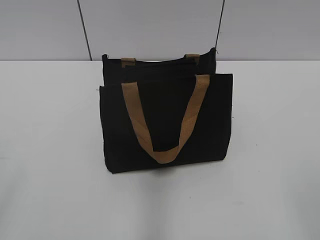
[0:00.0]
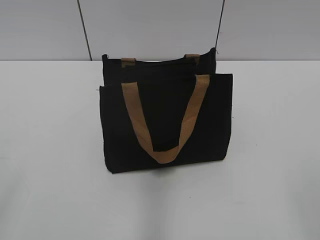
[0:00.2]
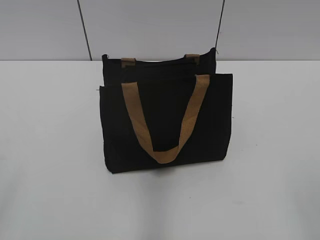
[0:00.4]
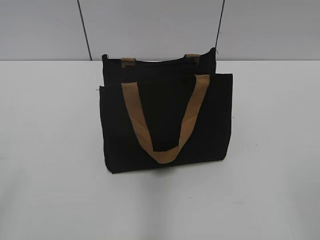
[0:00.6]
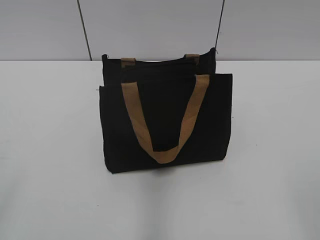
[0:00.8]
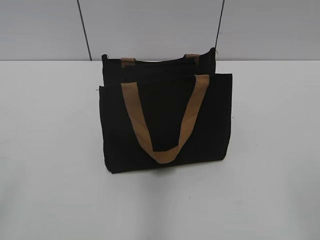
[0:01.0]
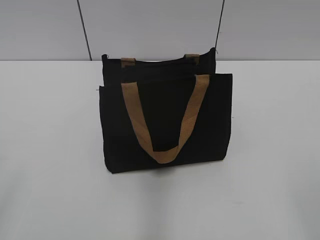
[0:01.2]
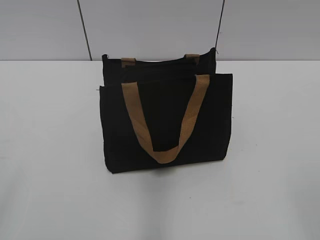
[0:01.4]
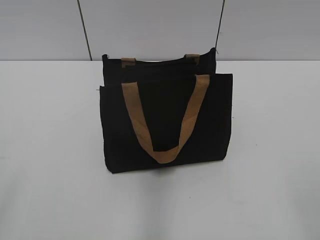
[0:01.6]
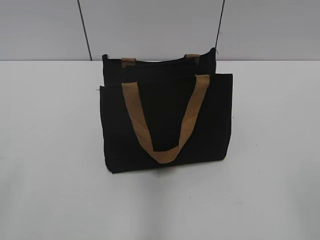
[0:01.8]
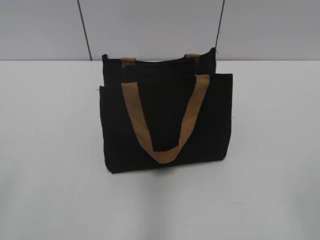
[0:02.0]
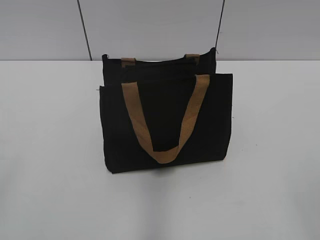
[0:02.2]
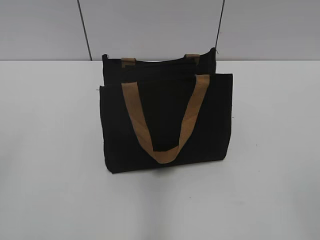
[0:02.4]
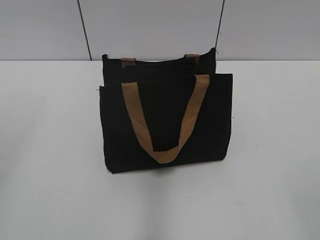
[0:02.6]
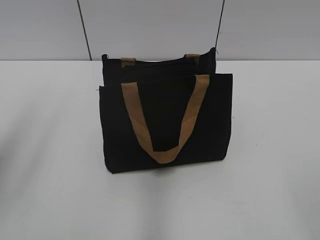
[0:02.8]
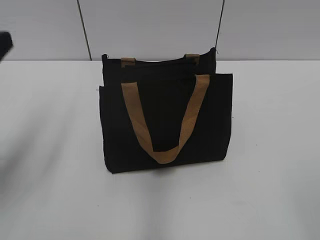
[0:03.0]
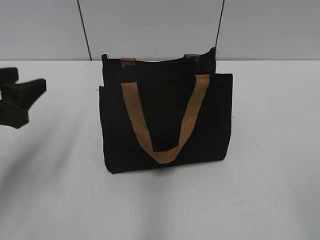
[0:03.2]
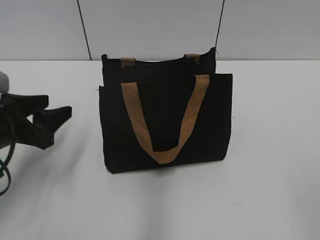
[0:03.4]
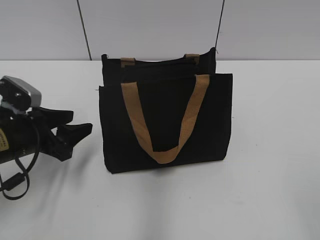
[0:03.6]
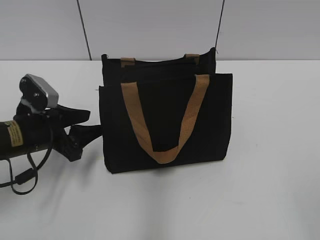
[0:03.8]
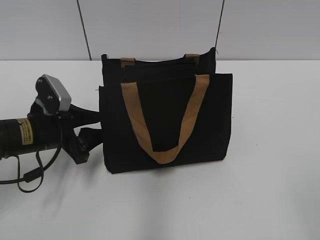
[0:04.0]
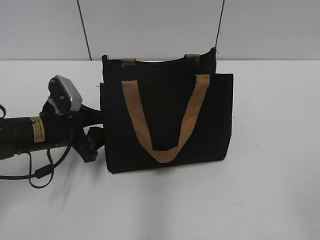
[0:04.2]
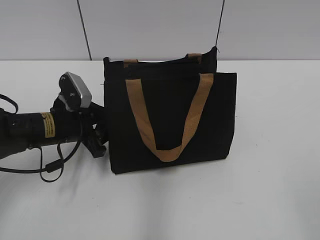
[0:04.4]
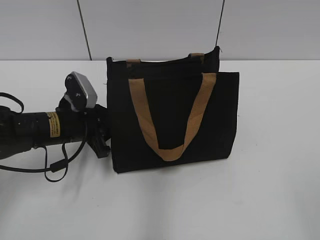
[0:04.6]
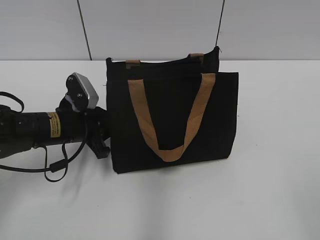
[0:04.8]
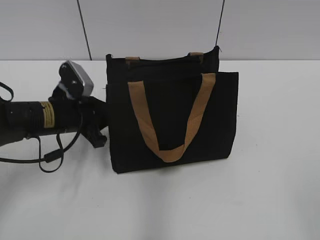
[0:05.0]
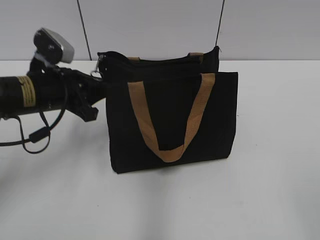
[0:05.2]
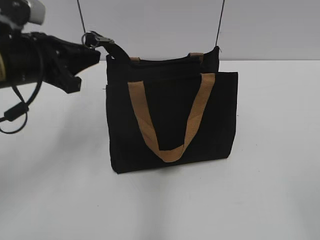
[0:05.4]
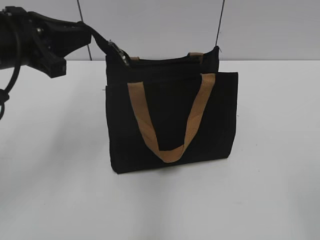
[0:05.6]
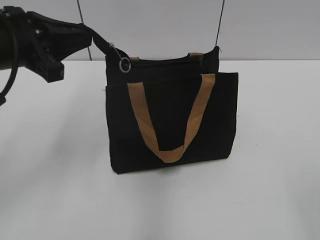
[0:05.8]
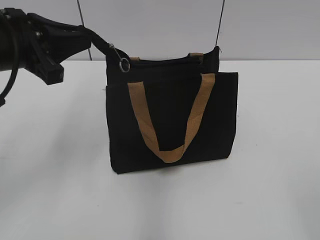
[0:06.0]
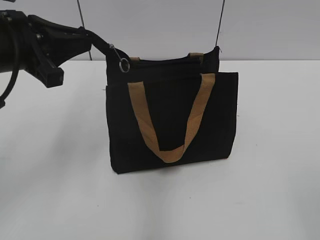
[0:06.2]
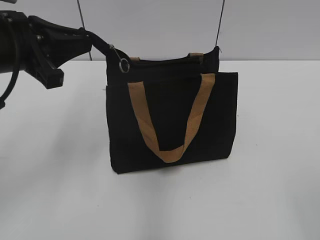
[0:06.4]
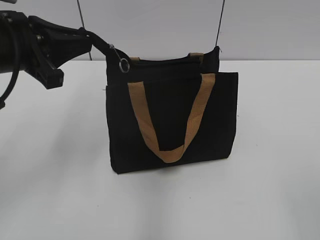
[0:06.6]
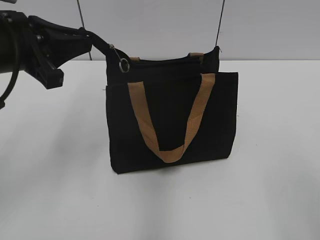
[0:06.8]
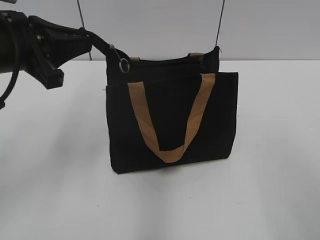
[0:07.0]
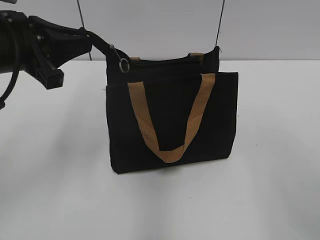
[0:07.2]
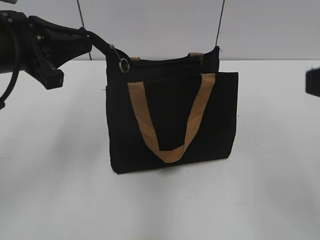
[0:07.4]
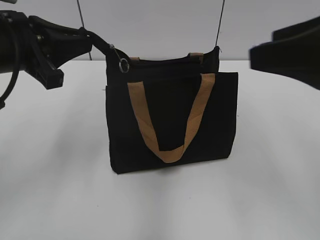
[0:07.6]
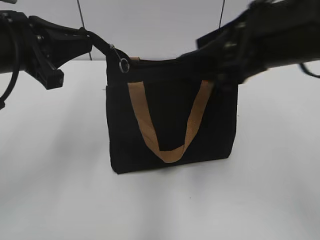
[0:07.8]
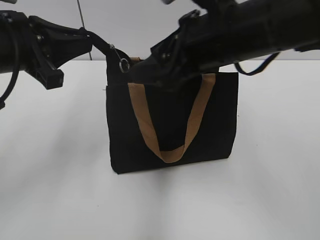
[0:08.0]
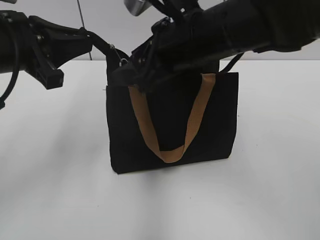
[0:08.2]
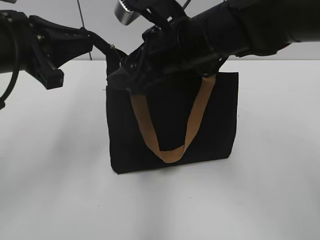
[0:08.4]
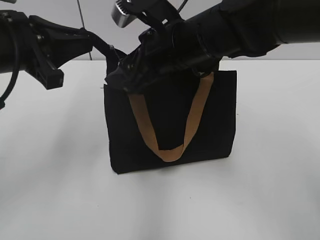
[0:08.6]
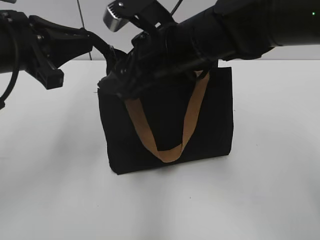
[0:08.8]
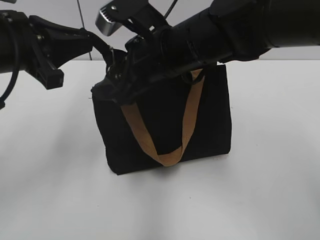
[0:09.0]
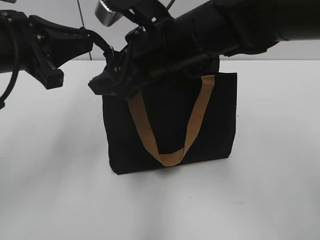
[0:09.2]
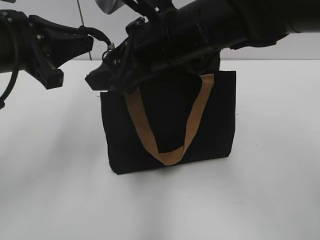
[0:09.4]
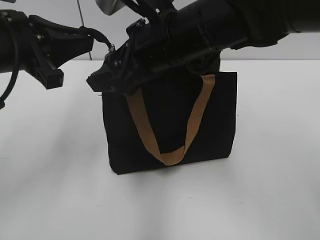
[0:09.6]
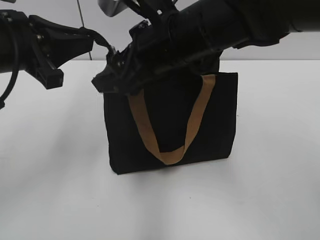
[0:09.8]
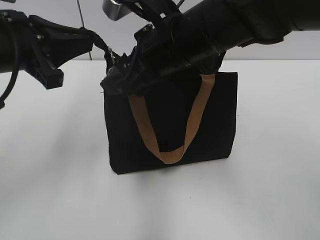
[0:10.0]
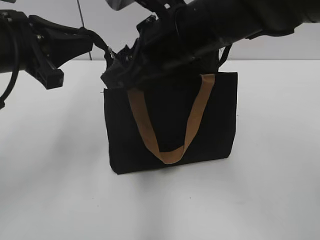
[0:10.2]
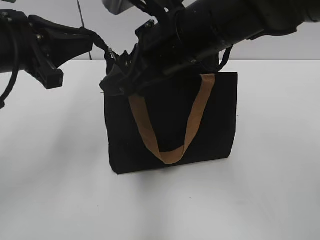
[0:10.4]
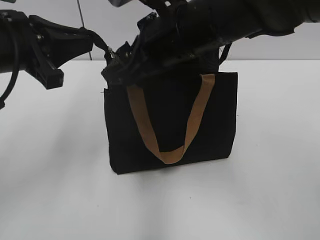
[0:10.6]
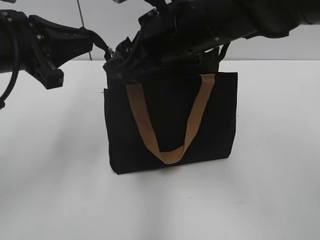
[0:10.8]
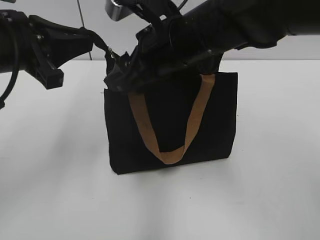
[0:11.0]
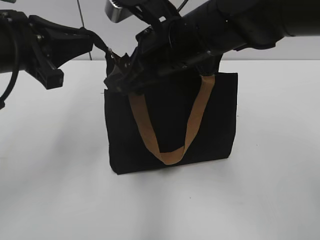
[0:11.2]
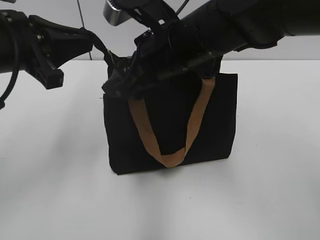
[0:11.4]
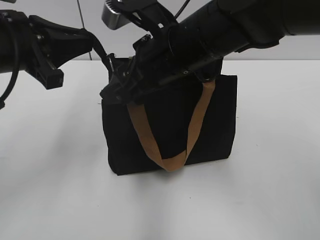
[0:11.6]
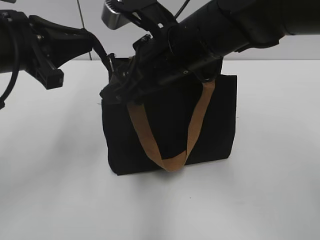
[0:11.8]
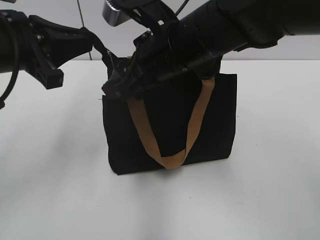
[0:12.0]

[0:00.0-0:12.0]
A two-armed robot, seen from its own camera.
0:01.6 to 0:03.0: The left gripper is displaced forward by roughly 20 cm.
0:03.0 to 0:04.4: The left gripper shifts about 25 cm downward, forward and to the right.
0:04.4 to 0:06.0: The left gripper travels upward by roughly 20 cm, and closes its fingers.
0:06.0 to 0:07.6: The right gripper goes about 20 cm forward.
0:07.6 to 0:09.0: The right gripper is displaced to the left, forward and downward by some 25 cm.
0:09.0 to 0:12.0: The grippers make only small movements.

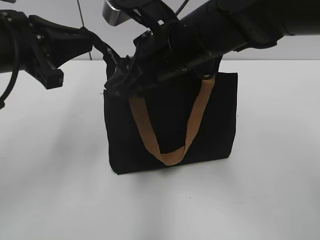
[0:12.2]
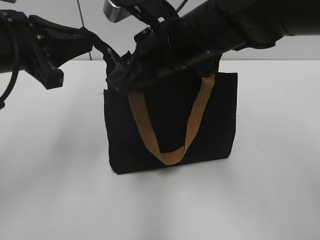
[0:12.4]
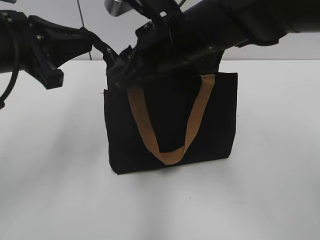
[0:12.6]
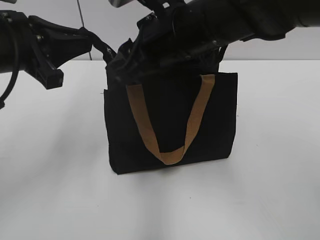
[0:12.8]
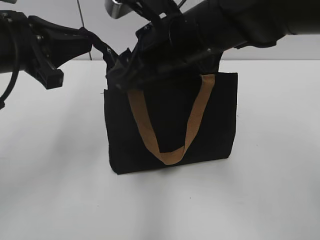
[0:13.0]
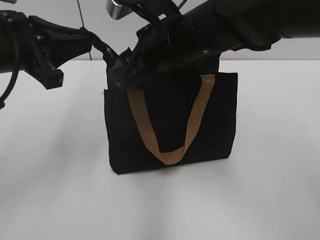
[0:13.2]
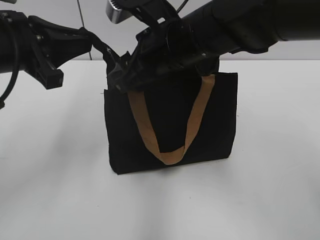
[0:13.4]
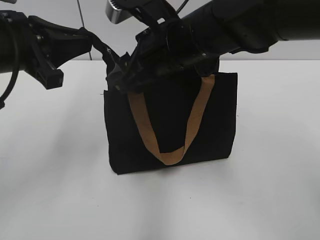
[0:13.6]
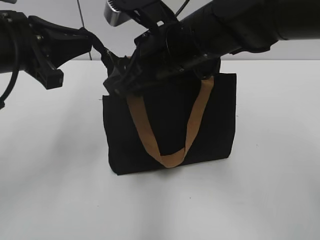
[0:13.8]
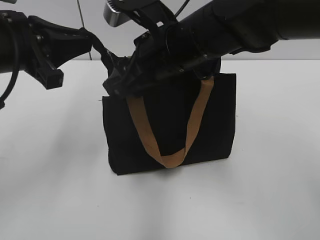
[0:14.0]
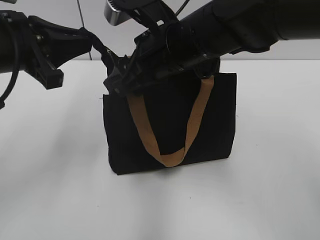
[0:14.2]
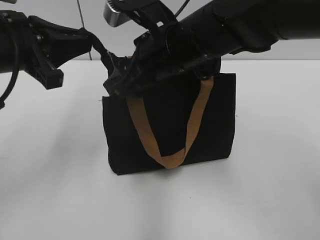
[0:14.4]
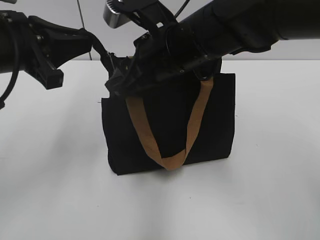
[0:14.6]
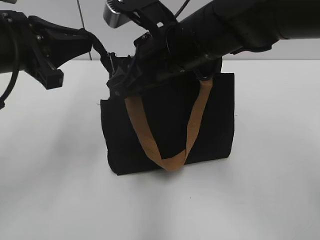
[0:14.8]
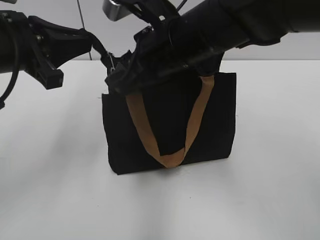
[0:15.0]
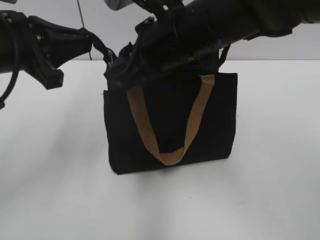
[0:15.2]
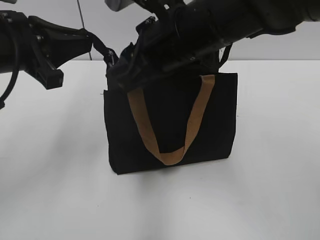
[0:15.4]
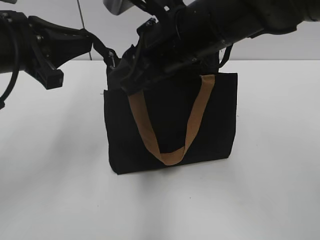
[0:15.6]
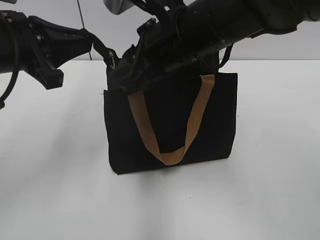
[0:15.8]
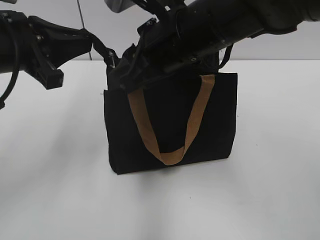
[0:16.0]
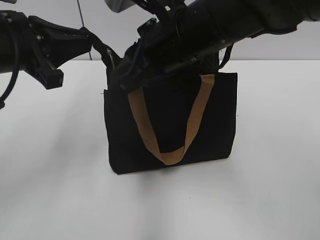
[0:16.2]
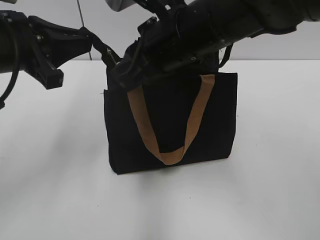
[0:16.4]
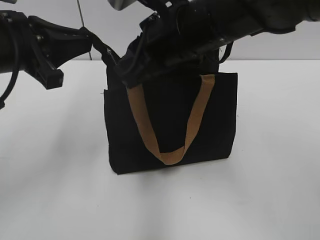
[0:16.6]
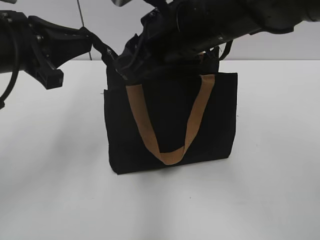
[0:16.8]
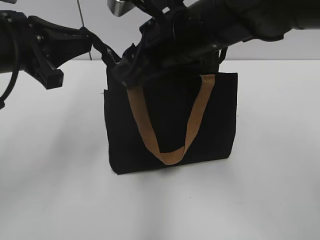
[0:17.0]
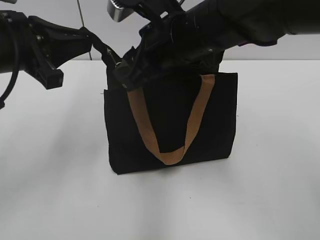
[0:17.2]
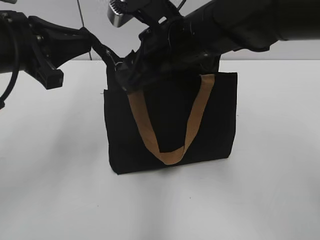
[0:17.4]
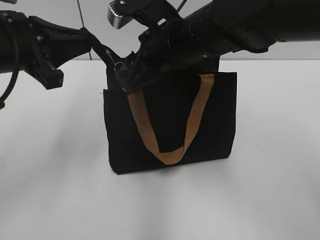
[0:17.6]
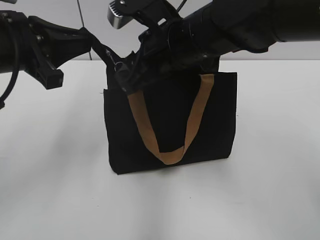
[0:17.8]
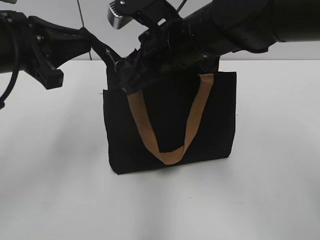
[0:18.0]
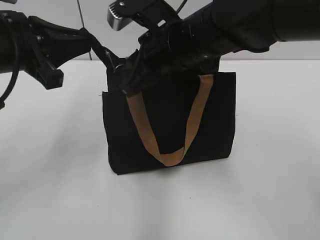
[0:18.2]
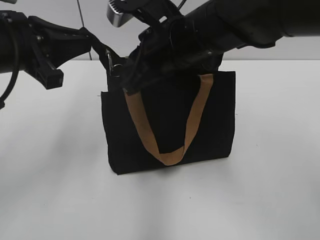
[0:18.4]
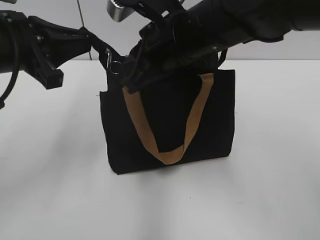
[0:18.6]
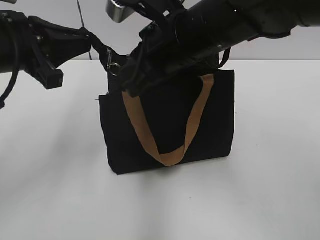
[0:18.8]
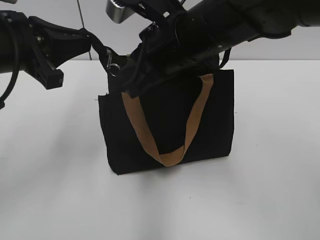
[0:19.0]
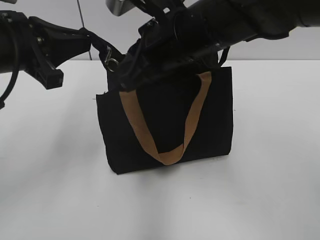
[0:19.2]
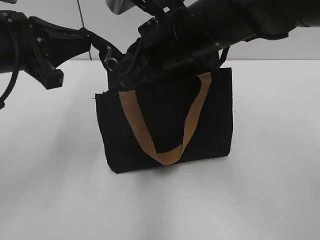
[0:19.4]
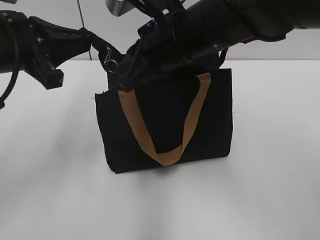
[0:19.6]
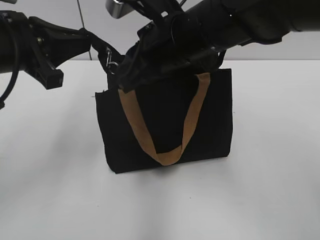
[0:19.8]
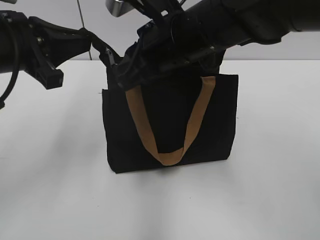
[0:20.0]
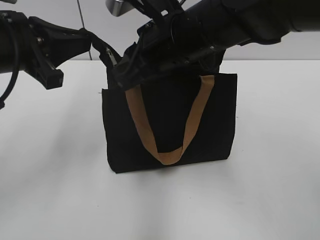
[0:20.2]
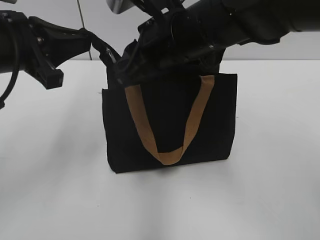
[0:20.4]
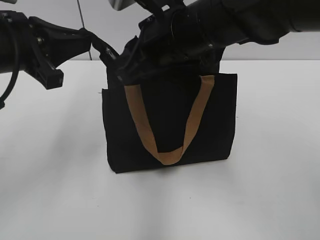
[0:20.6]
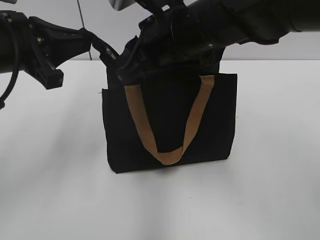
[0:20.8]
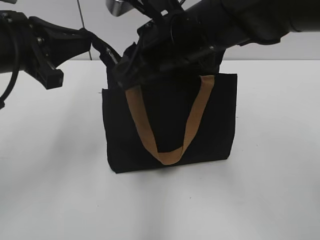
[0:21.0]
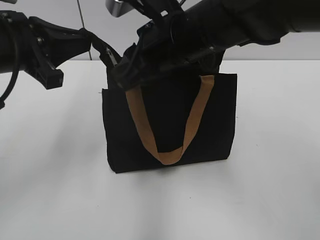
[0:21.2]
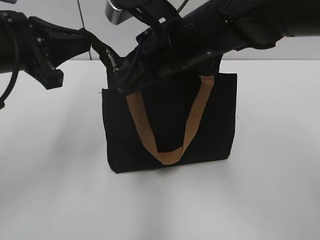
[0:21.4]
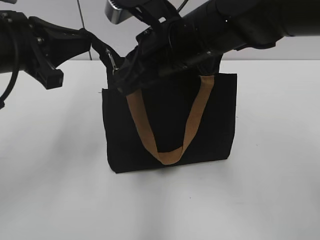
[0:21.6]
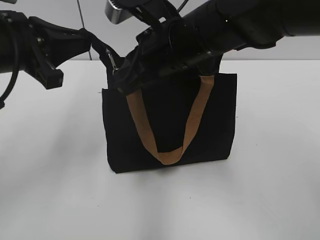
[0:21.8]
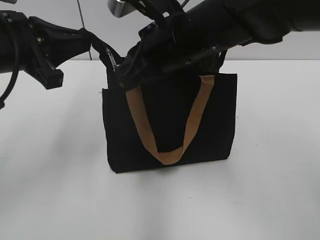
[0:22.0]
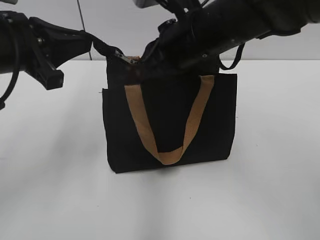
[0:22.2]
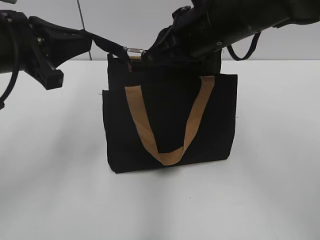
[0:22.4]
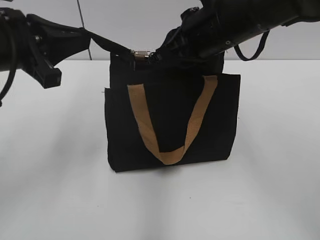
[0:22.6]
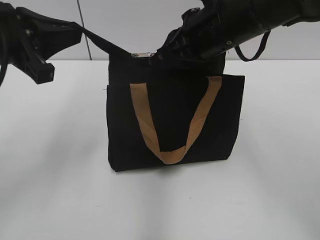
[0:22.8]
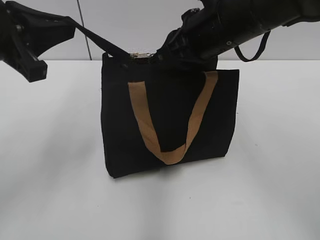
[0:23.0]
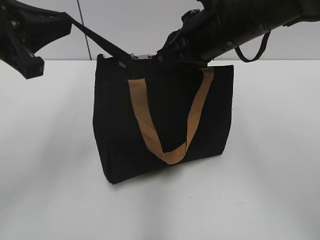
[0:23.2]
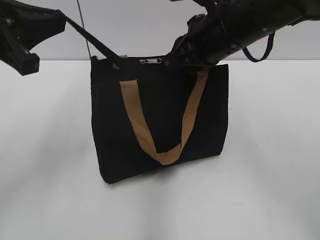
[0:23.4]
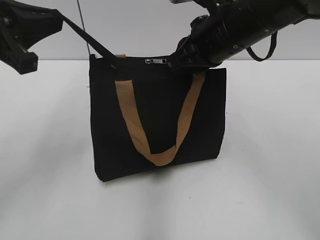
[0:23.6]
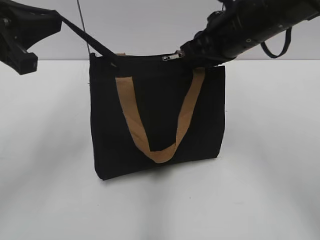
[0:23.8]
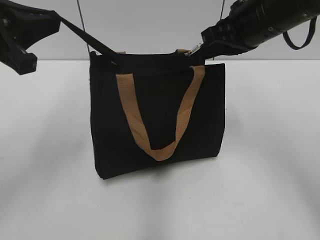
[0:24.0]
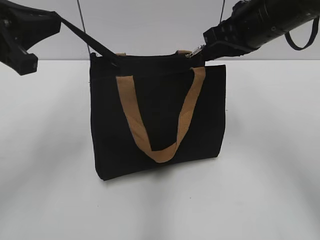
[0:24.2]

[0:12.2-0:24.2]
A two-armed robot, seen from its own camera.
0:12.2 to 0:13.8: The grippers move only a little.
0:13.8 to 0:15.2: The right gripper closes up.
0:15.2 to 0:16.6: The two grippers keep their place.
0:16.6 to 0:18.2: The right gripper opens and closes again.
0:18.2 to 0:19.8: There are only small adjustments of the grippers.
0:19.8 to 0:21.2: Both grippers stay about where they are.
0:21.2 to 0:22.6: The right gripper is displaced to the right by about 5 cm.
0:22.6 to 0:24.2: The right gripper goes roughly 5 cm to the right.
